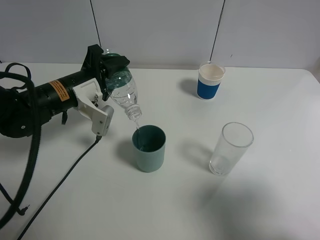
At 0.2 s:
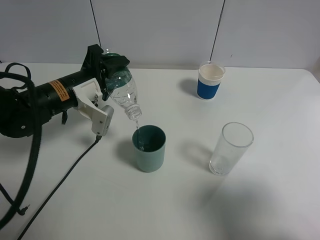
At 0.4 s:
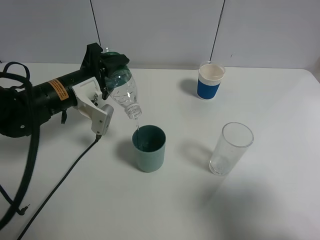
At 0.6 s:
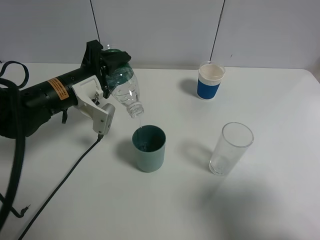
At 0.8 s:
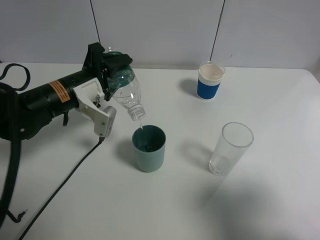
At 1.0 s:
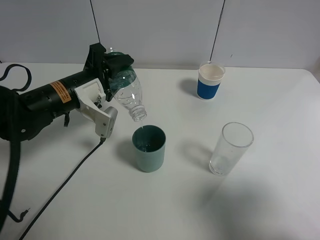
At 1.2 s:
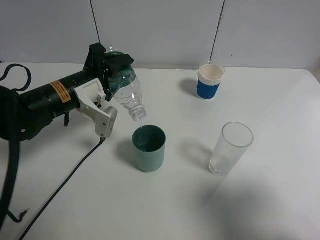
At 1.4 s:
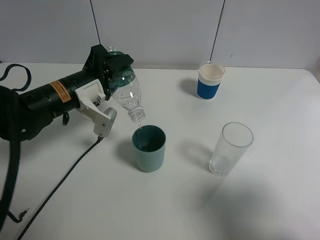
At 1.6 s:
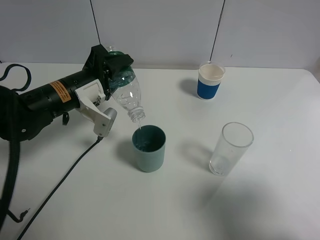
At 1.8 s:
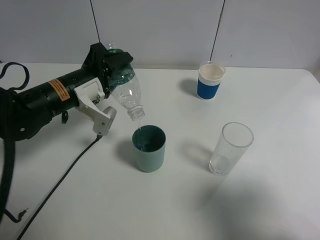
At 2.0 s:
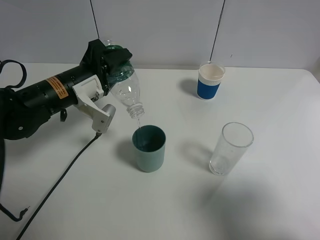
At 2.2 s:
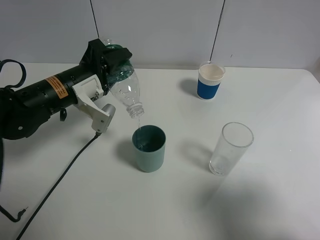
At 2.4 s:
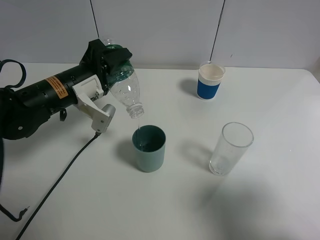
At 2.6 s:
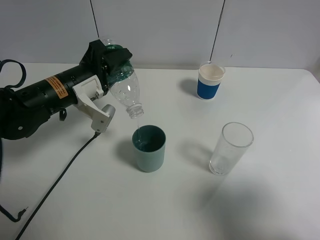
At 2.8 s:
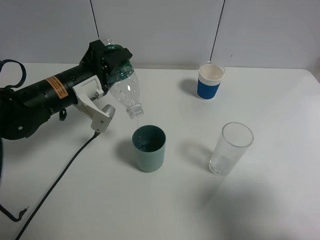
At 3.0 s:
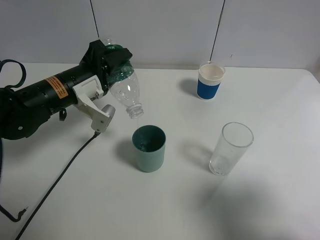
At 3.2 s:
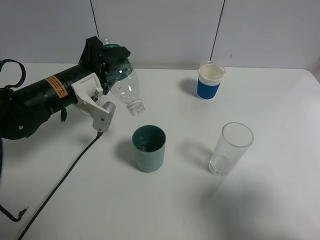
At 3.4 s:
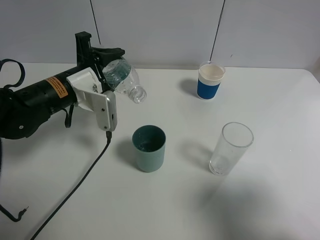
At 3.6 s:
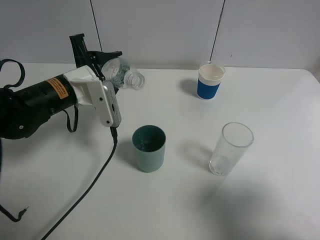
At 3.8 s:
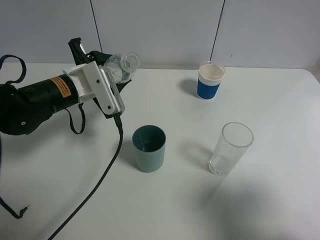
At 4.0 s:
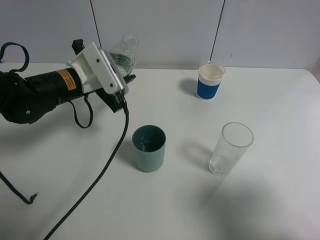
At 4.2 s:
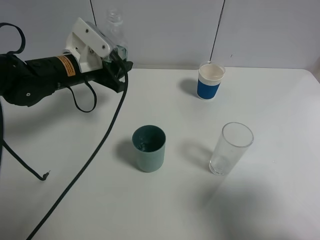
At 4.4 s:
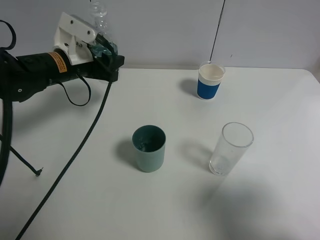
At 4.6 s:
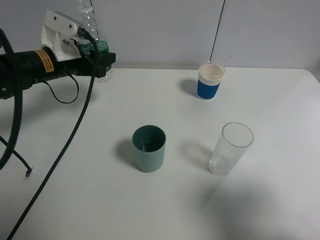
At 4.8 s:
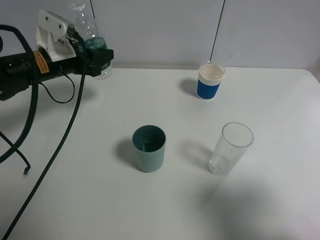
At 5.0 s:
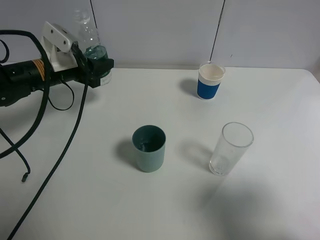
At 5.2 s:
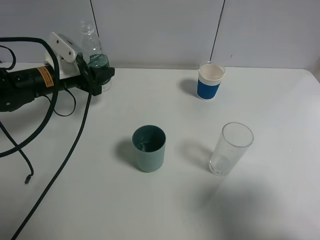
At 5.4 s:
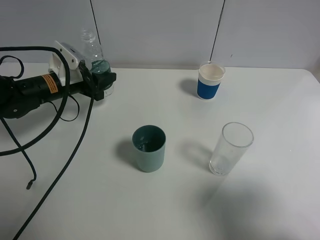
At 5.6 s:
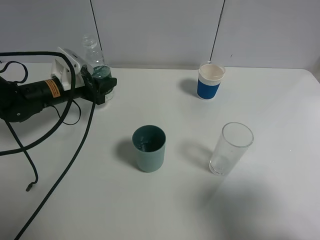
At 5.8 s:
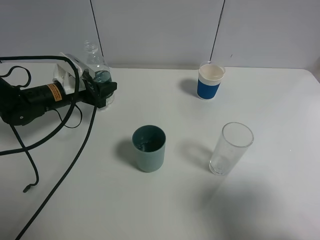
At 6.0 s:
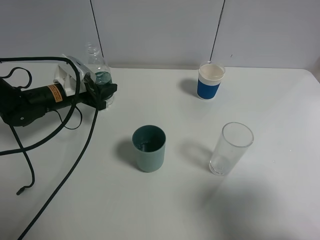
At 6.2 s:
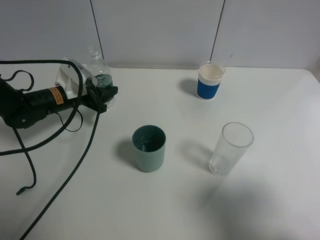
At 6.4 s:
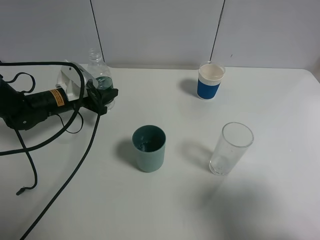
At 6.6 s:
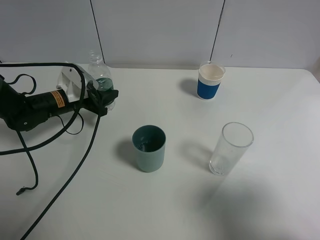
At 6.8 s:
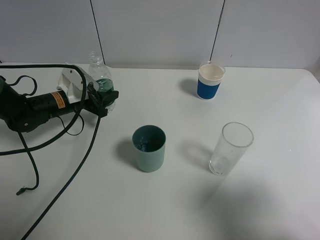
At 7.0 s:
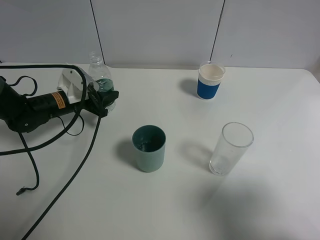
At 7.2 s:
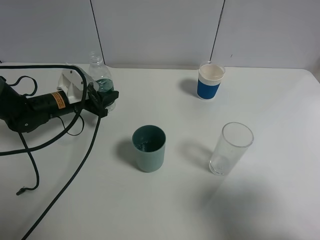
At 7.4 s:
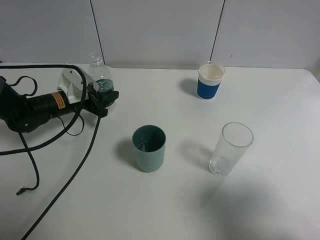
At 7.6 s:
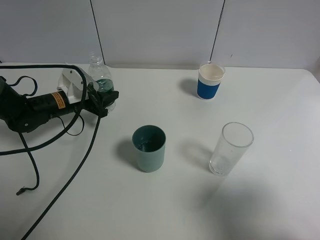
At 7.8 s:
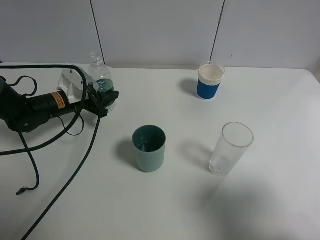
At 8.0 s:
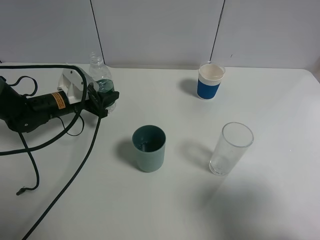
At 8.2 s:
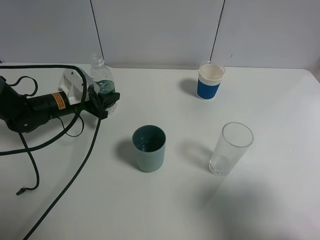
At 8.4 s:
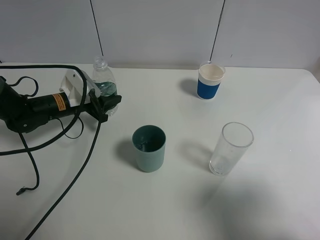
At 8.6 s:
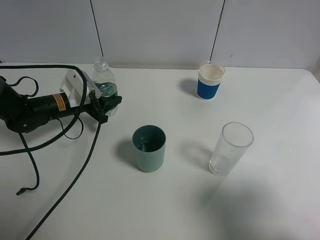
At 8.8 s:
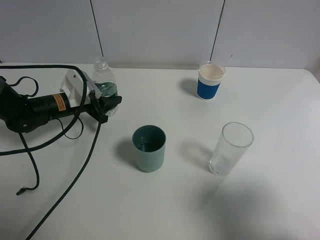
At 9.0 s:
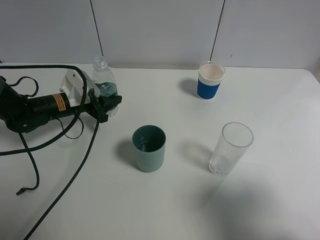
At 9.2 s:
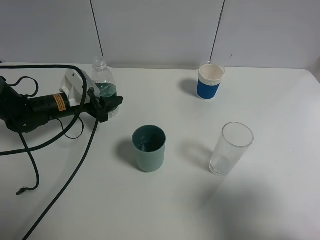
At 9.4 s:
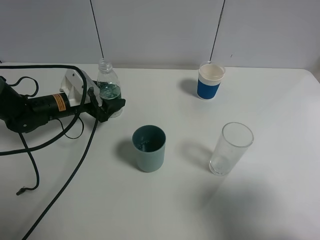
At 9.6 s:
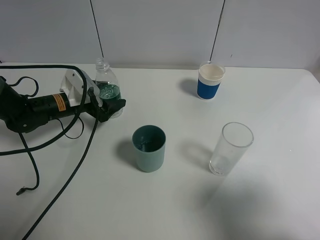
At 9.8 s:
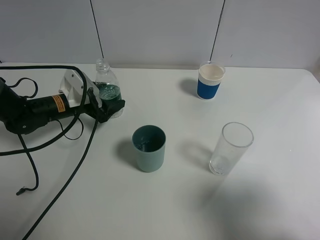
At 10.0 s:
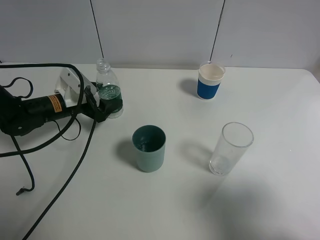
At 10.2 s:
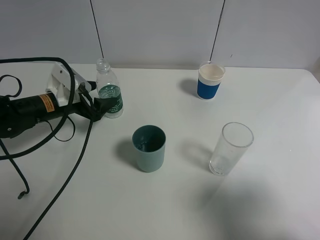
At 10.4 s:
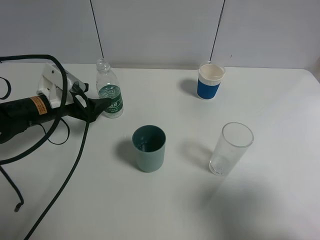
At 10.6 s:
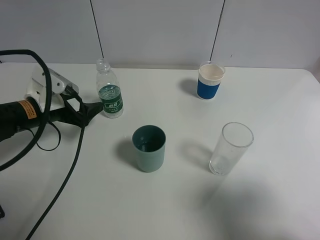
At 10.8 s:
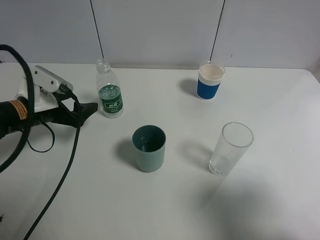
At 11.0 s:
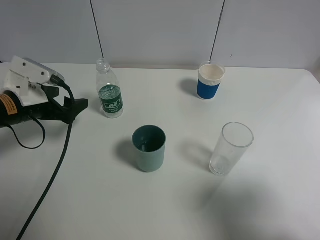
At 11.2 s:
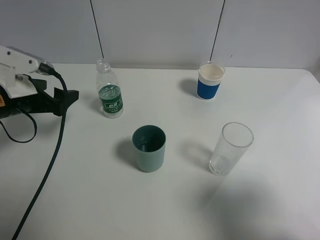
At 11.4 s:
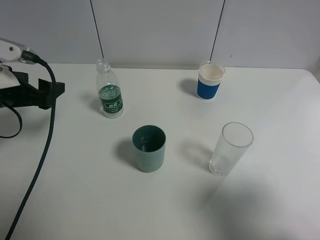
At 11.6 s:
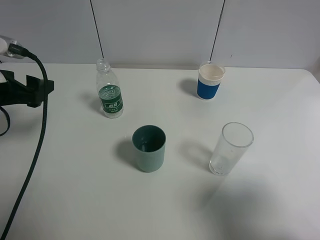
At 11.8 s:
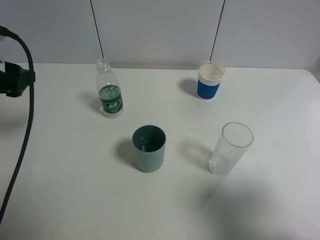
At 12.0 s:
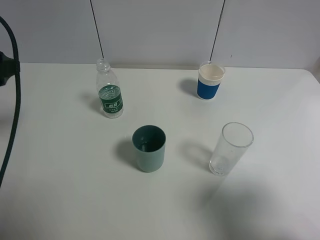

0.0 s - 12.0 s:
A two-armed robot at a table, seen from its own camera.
Task of the whole recording: use a gripper to hold the bottle of the drink and pour it into a random cup.
Step, 0.0 s - 3.2 s: Pour the mineral water into the cyan cup with the left gripper.
Step, 3.4 s - 10.0 s: Place the mineral water bottle on the table with the left gripper.
0.0 s - 1.6 s: There are only small adjustments of the grippers.
1.6 s - 3.0 s: Both grippers stay put.
3.0 s - 4.4 s: The left gripper goes roughly 5 cm forward.
4.4 s - 6.0 s: The left gripper goes some 10 cm downward.
6.0 s - 9.0 s: The grippers make only small movements.
9.0 s - 10.4 s: The left gripper changes place by roughly 5 cm, and opens.
10.4 s - 12.0 s: The left gripper shifts about 20 cm upward and backward.

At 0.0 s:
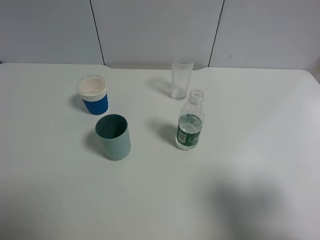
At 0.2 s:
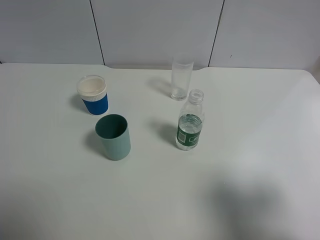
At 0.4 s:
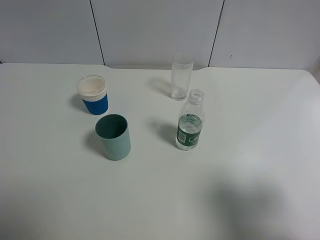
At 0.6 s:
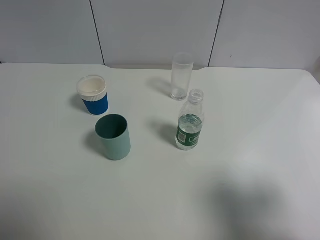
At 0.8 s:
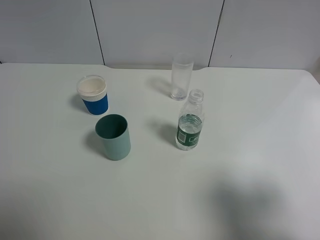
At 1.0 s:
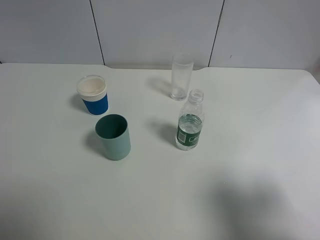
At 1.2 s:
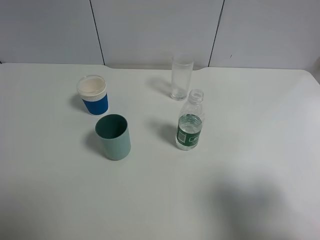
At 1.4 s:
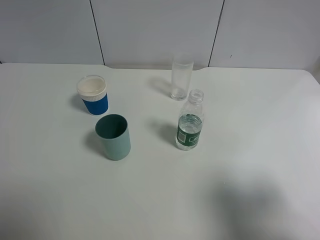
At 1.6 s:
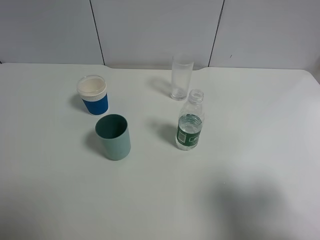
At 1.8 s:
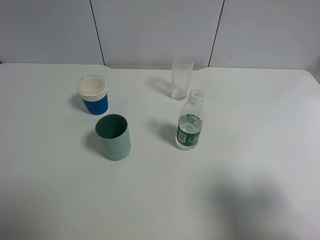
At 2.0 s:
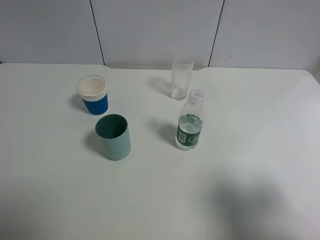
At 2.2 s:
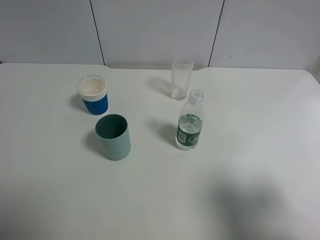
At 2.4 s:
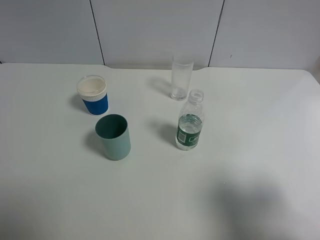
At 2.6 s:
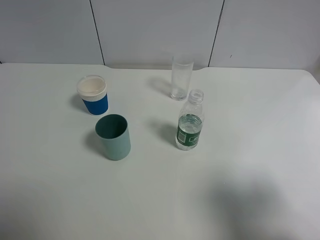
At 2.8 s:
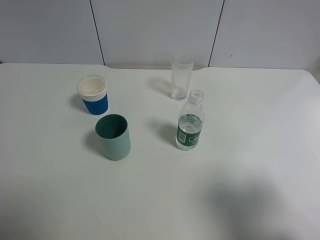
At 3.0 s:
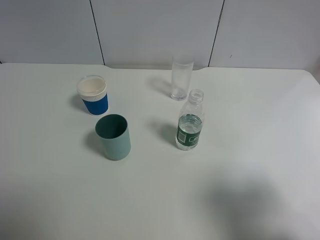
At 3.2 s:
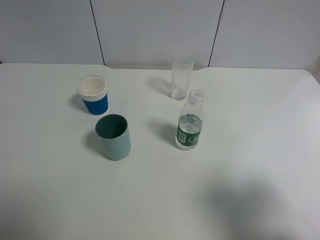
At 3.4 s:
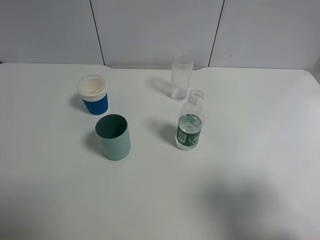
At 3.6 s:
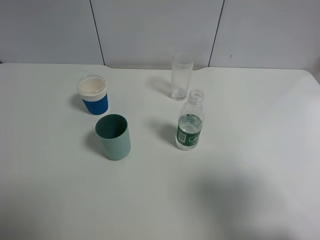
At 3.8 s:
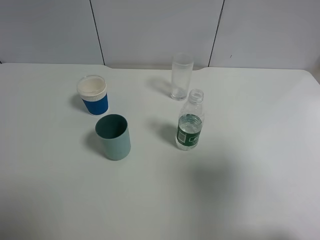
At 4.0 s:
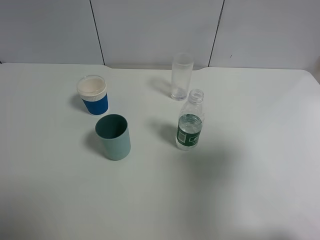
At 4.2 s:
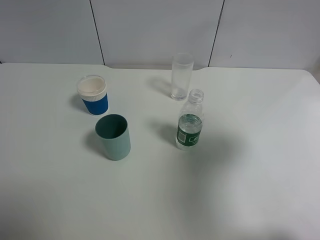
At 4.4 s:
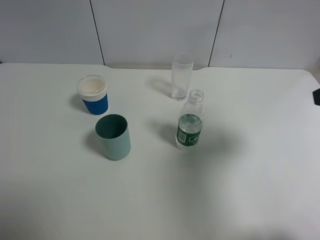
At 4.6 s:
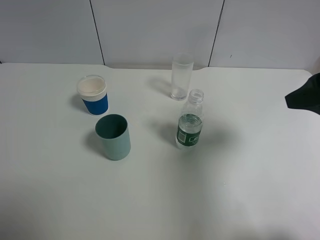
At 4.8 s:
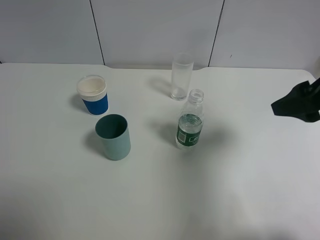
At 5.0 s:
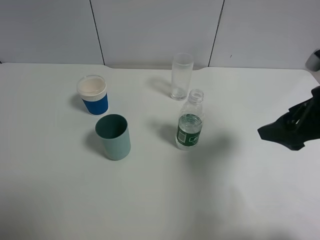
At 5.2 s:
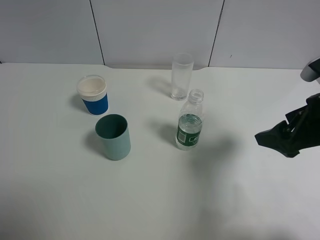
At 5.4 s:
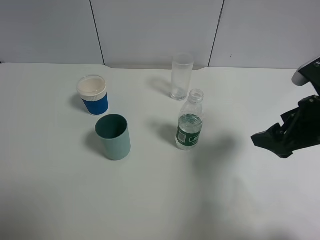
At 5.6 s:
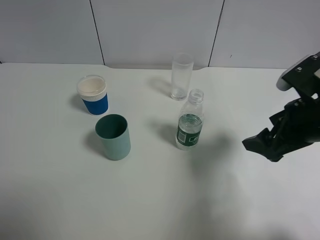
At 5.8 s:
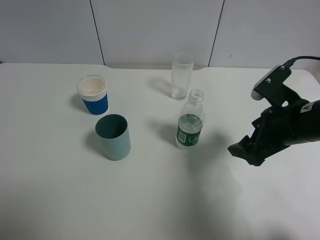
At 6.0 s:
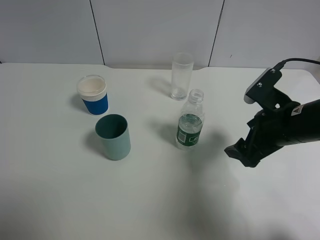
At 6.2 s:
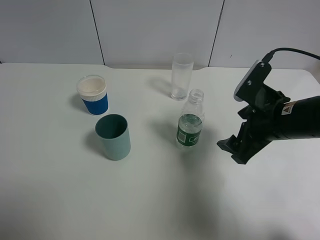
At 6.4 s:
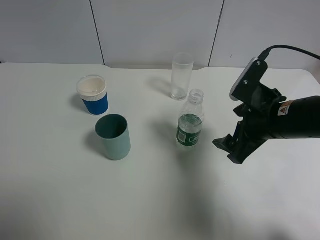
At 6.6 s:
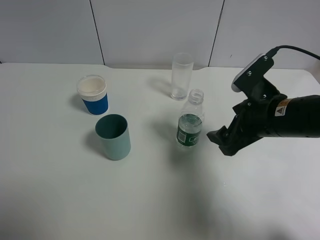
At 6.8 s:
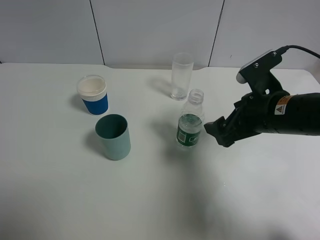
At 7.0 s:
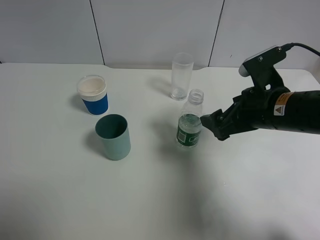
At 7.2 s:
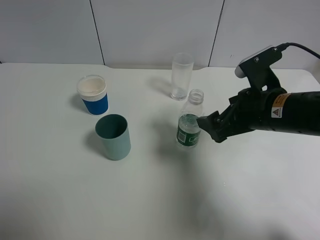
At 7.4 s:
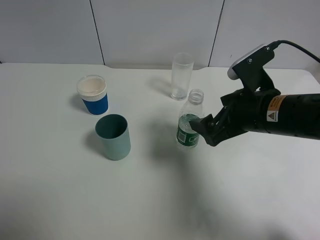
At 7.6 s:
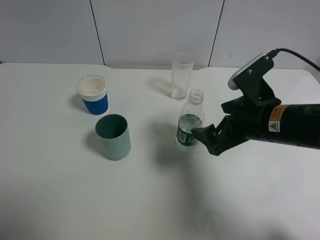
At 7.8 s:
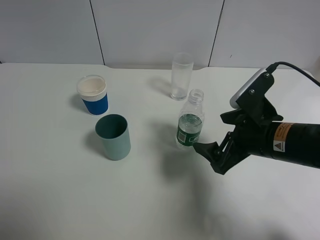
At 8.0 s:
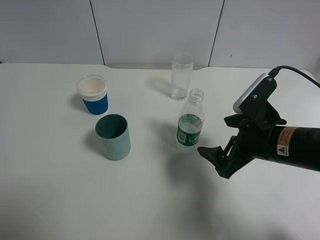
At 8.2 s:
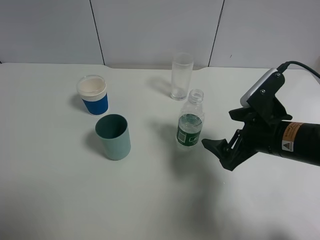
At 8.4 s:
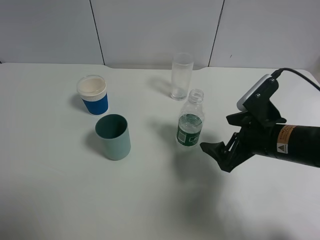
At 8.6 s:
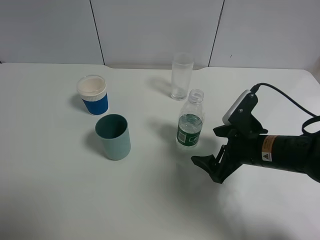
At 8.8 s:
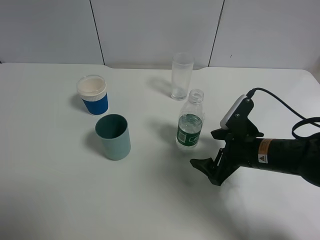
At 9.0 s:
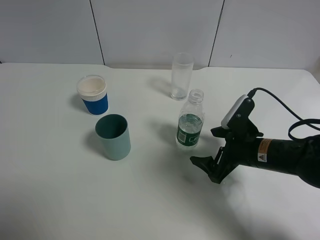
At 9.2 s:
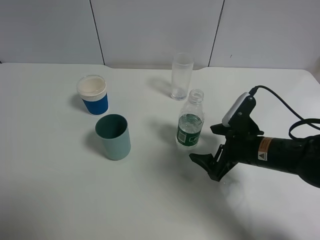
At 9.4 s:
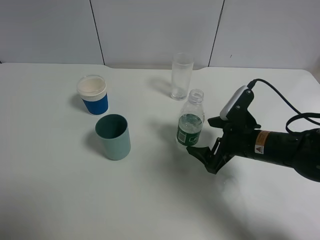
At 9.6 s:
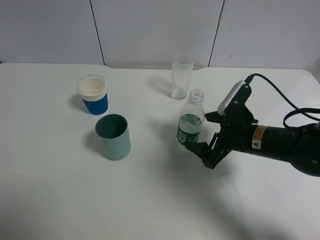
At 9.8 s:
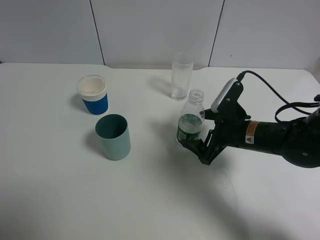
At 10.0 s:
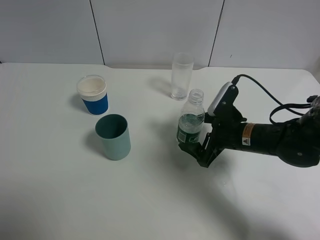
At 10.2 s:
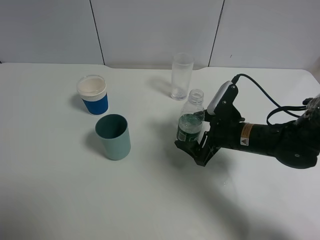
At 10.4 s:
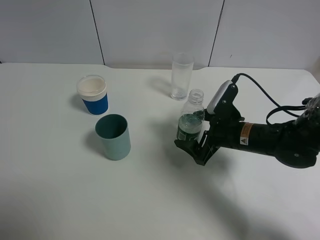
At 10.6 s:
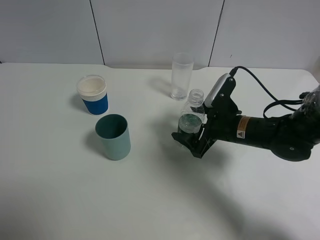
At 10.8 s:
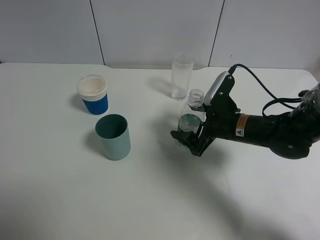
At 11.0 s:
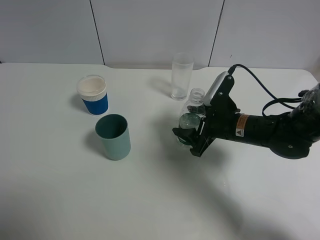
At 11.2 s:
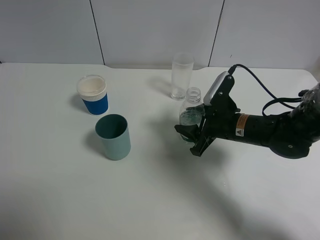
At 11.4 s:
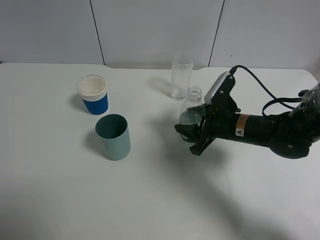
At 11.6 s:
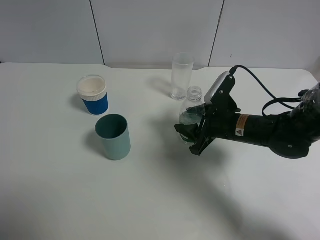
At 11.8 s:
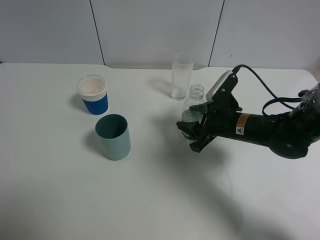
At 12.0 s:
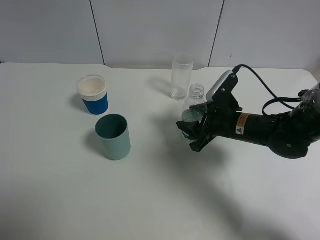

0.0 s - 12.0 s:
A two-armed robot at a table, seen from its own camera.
Task of the whole recording: use a gripper to hold the bottle of the drink and pour it into a random cup.
Step, 0.0 s - 11.8 s: Grasp the mineral water bottle with the right gripper.
0.0 s - 1.6 s: Neither gripper changes place.
3.0 s - 4.4 s: The right gripper travels forward by approximately 15 cm.
4.4 s - 6.0 s: The right gripper goes roughly 15 cm downward, to the left and forward.
7.6 s - 9.0 s: The right gripper is displaced downward by about 10 cm.
9.0 s - 10.4 s: There are only small adjustments of the grippers.
10.4 s - 12.0 s: The right gripper closes up.
